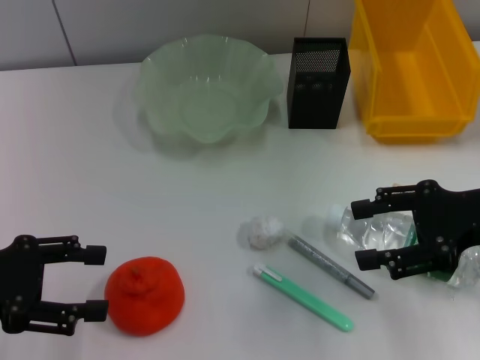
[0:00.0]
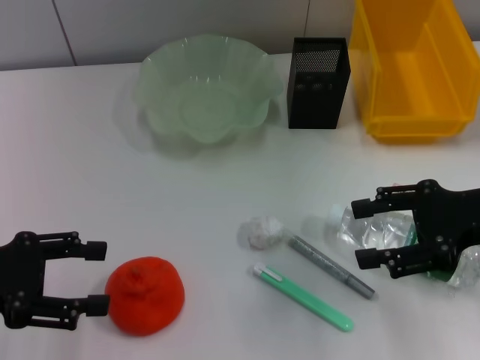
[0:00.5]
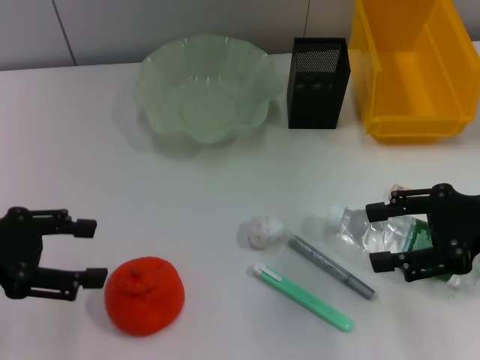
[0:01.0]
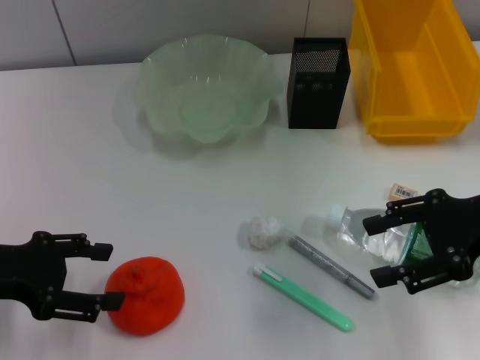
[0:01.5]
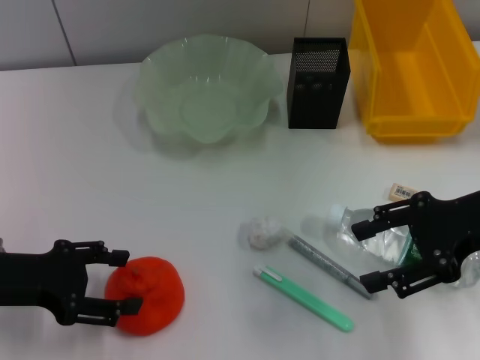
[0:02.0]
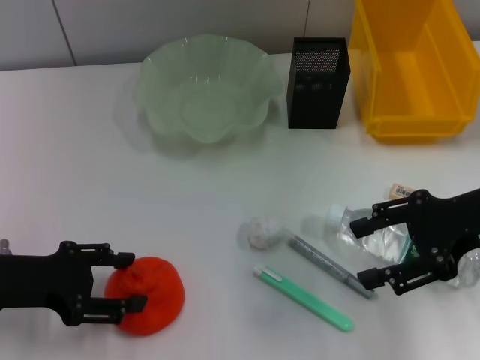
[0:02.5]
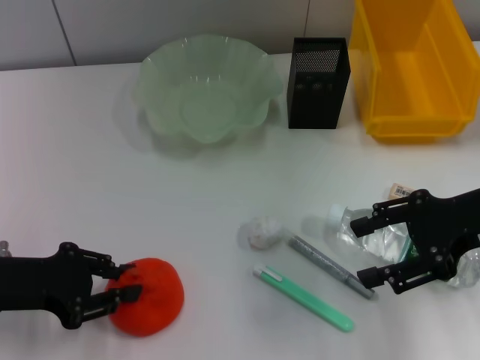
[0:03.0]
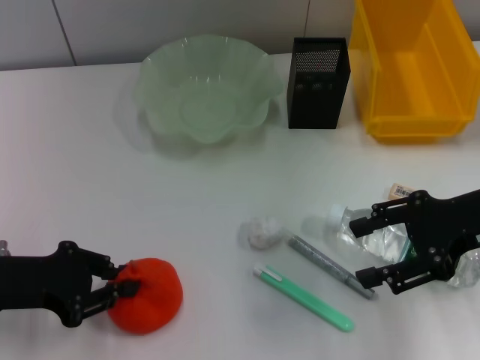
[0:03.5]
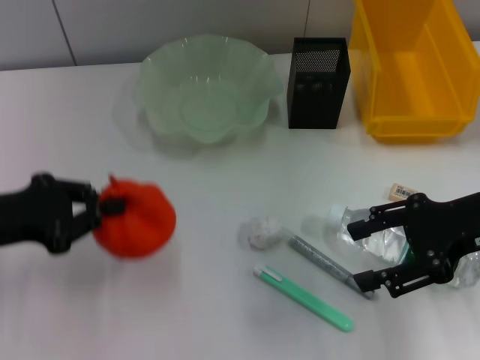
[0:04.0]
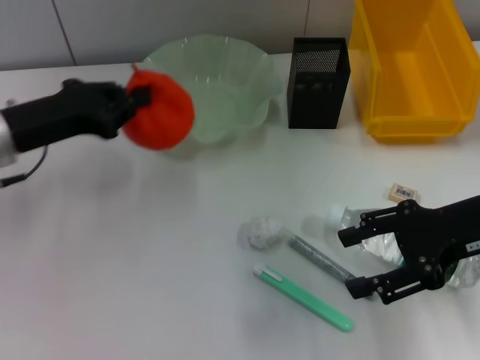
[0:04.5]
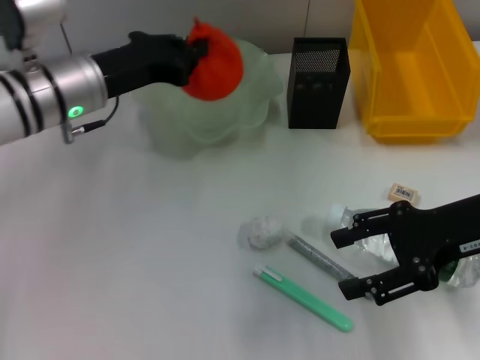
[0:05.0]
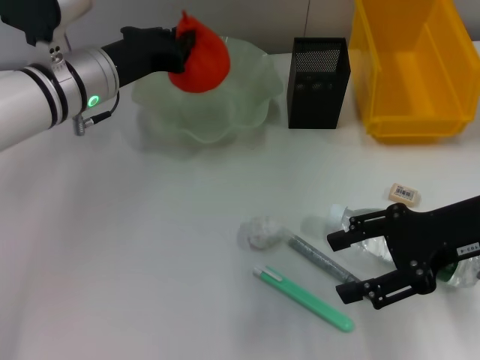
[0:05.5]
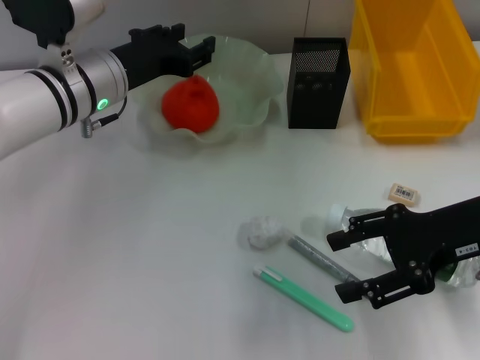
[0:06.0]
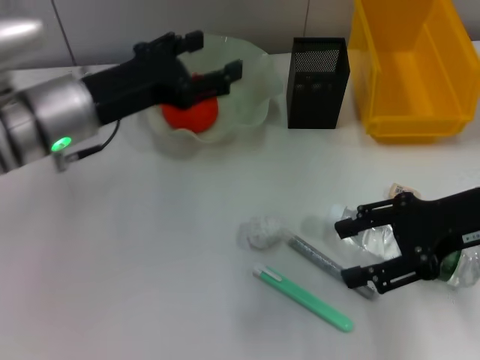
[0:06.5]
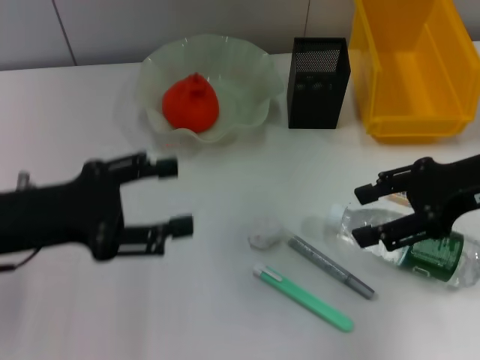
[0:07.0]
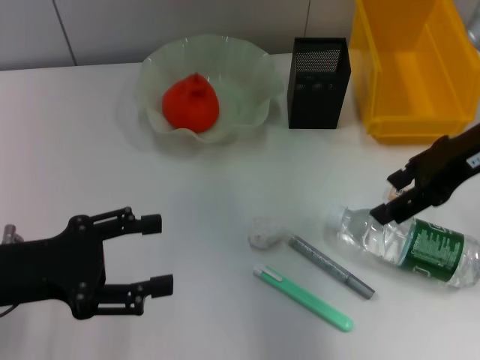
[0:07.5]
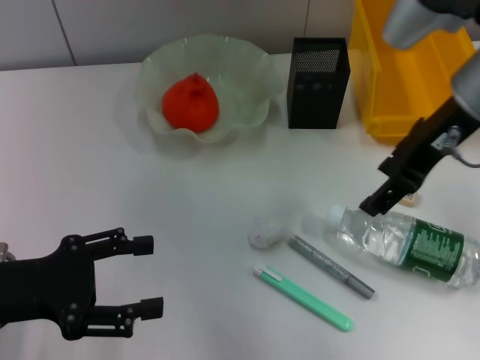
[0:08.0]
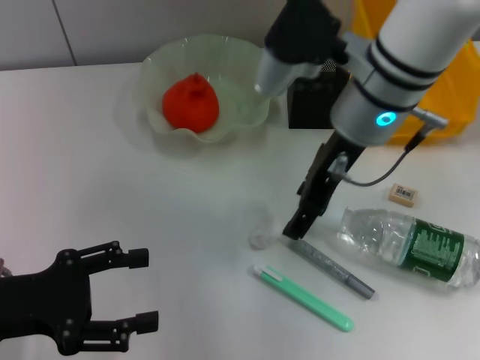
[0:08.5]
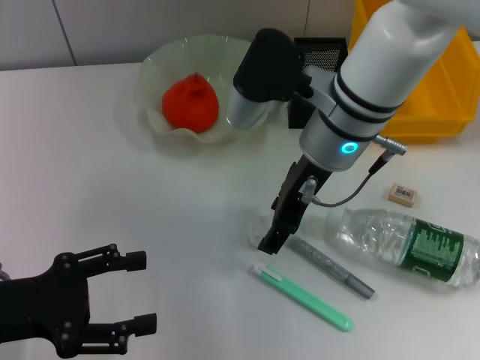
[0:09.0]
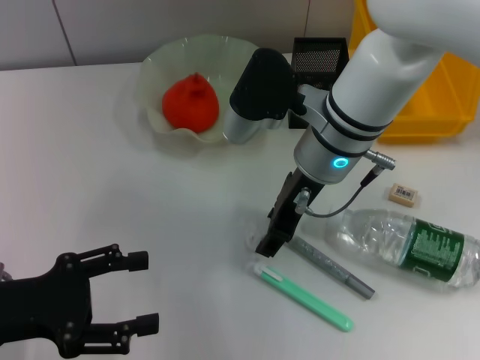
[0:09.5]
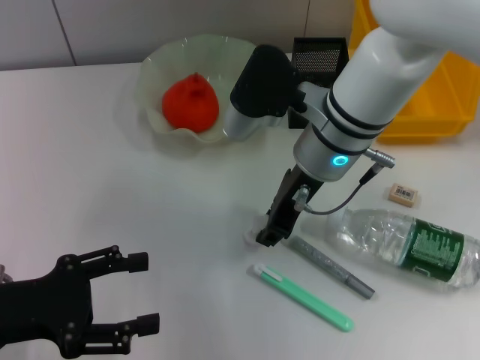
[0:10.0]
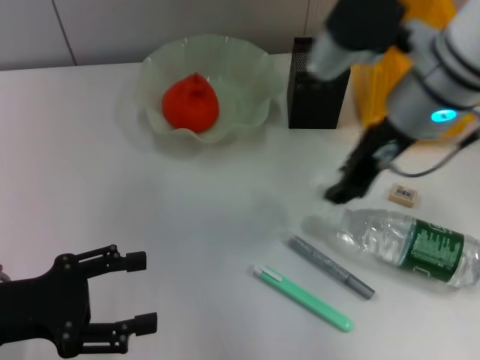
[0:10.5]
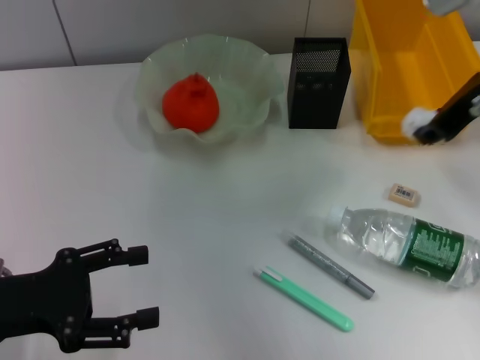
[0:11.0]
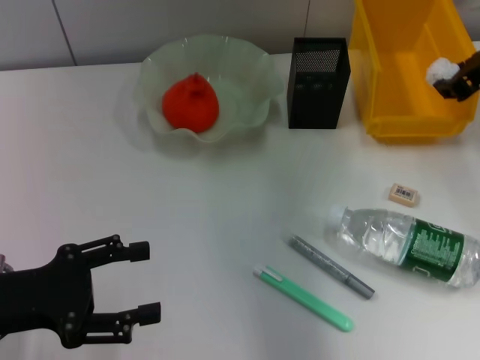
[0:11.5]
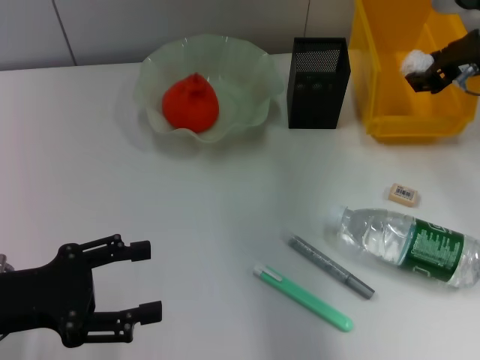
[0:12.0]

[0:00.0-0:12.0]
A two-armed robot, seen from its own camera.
Step, 0:00.0 to 0:03.5: Grab the orange with the left hand.
Step, 0:04.0 to 0:06.0: Place the orange into the fruit bowl with the left hand.
Step, 0:06.5 to 0:09.5: Grab the paper ball with the right hand.
0:00.0 to 0:02.0: The grippers move only a little.
0:02.0 to 0:04.0: The left gripper closes its fingers.
0:04.0 to 0:06.0: The left gripper moves to the right and forward, some 20 cm.
0:06.0 to 0:08.0: The left gripper moves backward and to the left, some 20 cm, and opens its fingers, while the right gripper shifts some 15 cm upward, forward and to the left.
0:08.0 to 0:10.0: The right gripper heads to the left and downward, covering about 15 cm, and closes its fingers.
0:10.0 to 0:12.0: The right gripper moves to the right, approximately 20 cm.

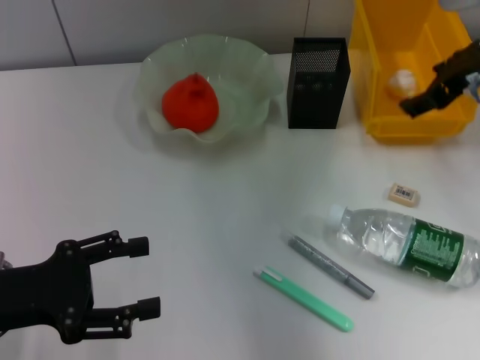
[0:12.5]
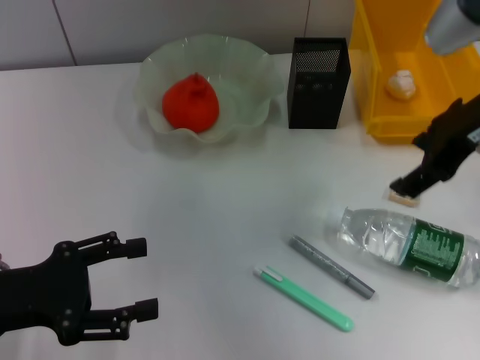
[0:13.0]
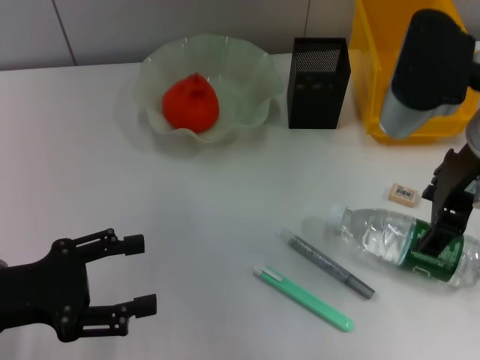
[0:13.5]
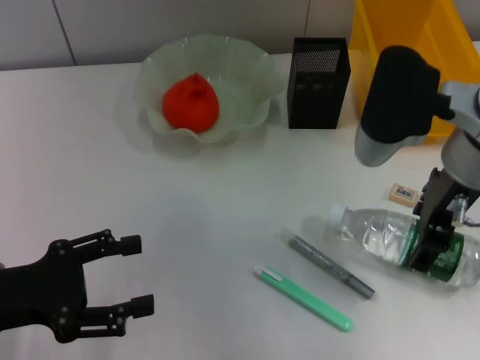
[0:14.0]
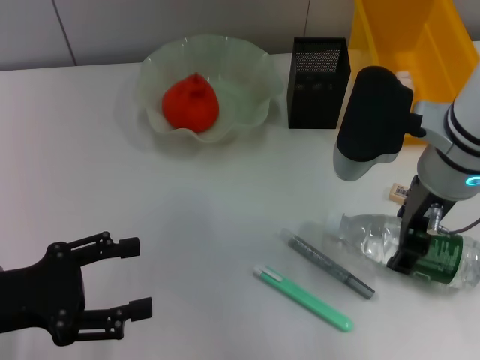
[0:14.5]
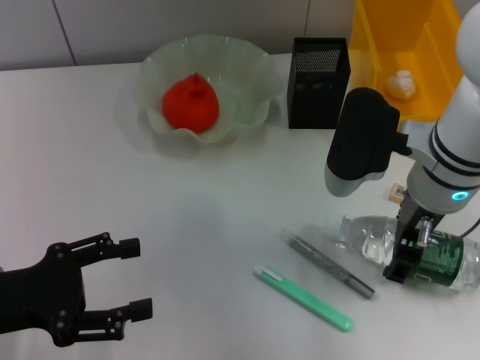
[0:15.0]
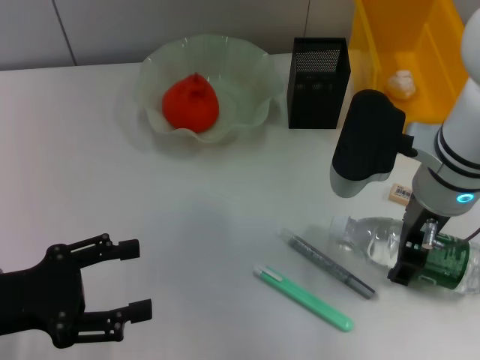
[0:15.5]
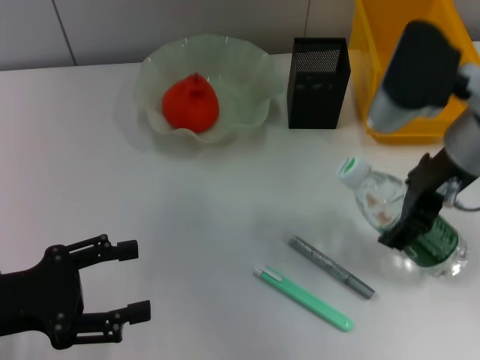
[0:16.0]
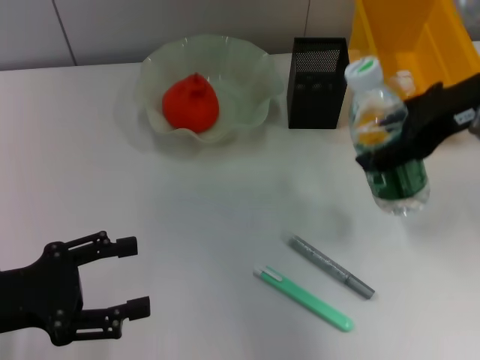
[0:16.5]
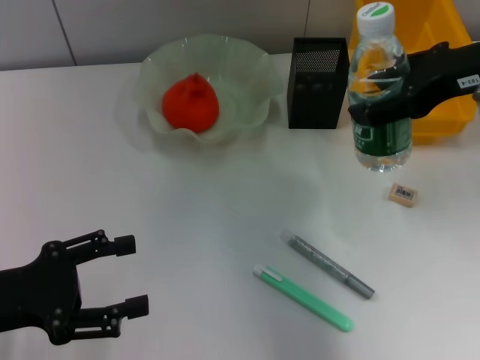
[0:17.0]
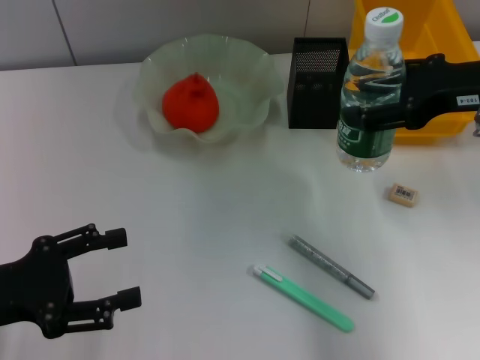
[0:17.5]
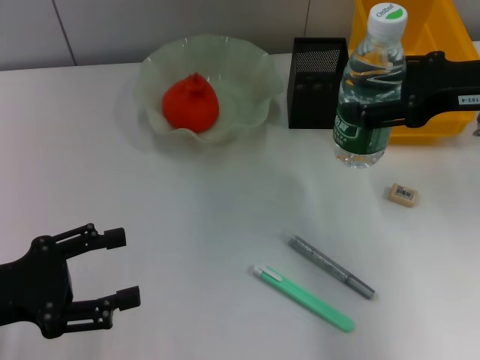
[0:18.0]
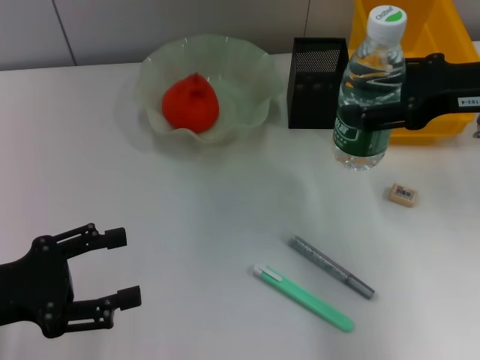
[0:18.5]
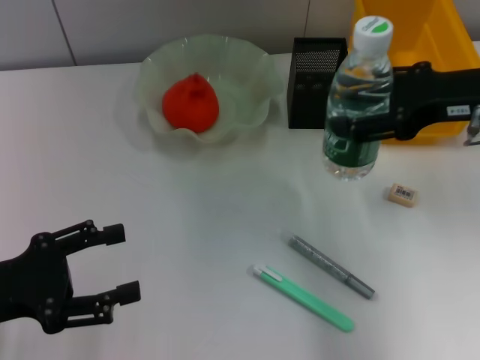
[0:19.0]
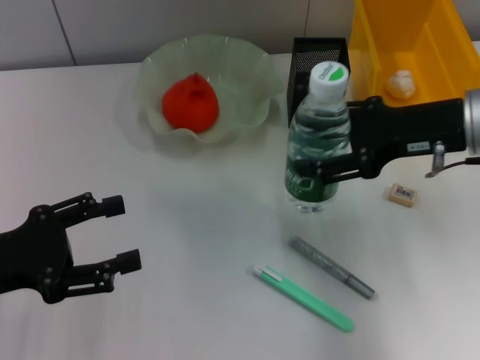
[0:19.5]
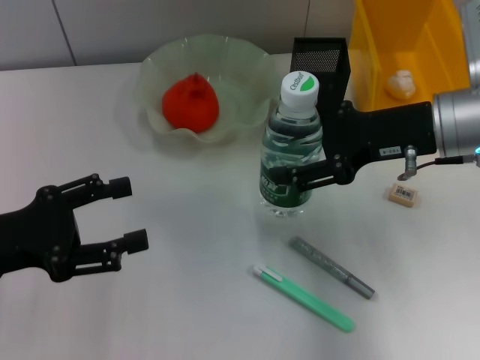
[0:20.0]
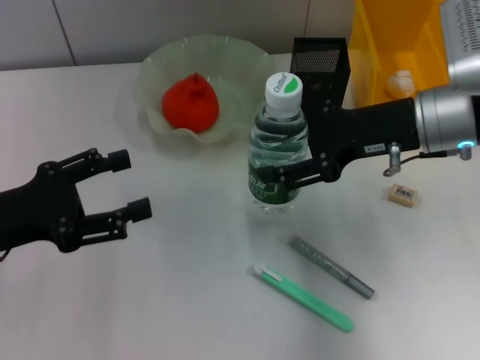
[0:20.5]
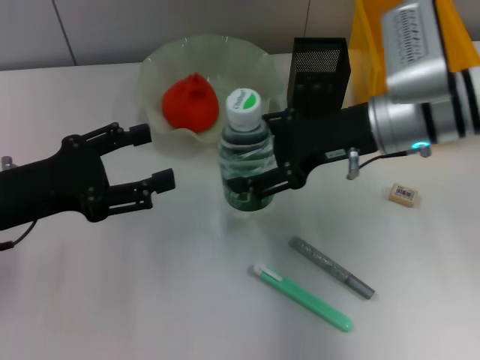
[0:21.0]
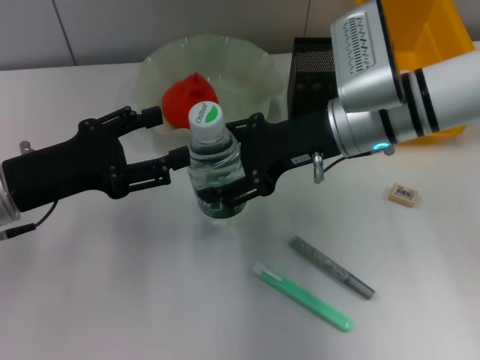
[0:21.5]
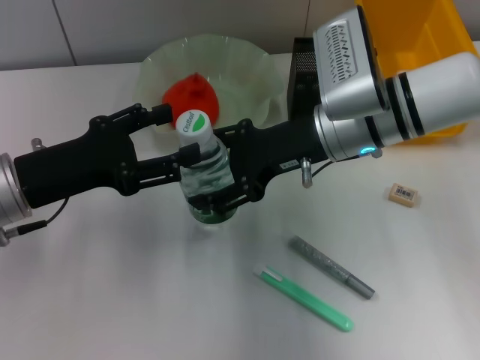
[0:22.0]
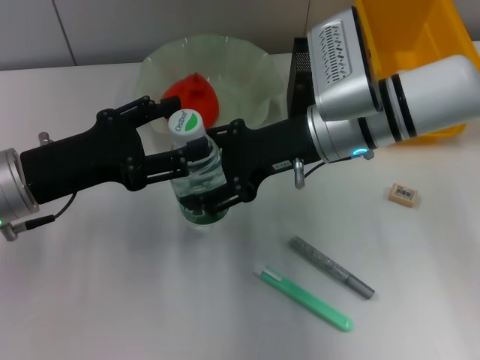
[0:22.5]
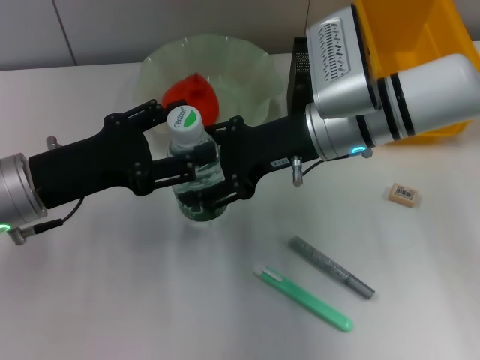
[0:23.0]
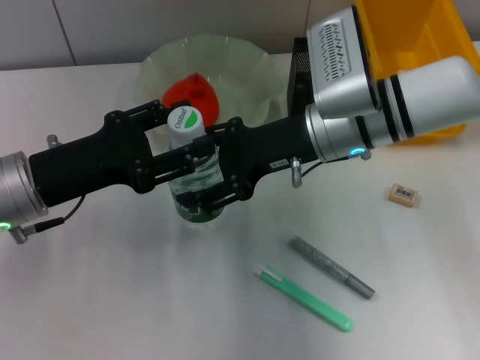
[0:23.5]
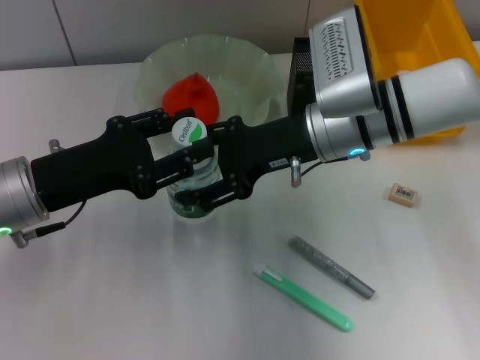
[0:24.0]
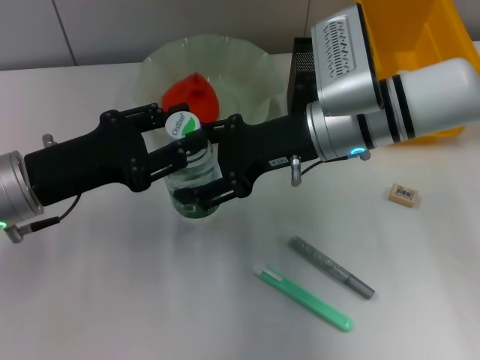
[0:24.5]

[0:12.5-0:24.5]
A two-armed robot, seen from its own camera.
Step, 0:12.5 to 0:15.5: Grab the water bottle with the right hand.
0:12.5 to 0:14.5: The right gripper moves to the left and backward, some 10 cm.
0:14.5 to 0:16.5: The right gripper heads upward and to the right, covering roughly 10 cm.
0:16.5 to 0:18.5: The right gripper moves some 5 cm.
0:18.5 to 0:20.5: The right gripper is displaced to the left by roughly 5 cm. Meanwhile the left gripper changes place by some 5 cm.
0:20.5 to 0:22.5: The left gripper moves to the right, about 5 cm; the right gripper shifts approximately 10 cm to the left.
0:22.5 to 0:24.5: The left gripper closes.

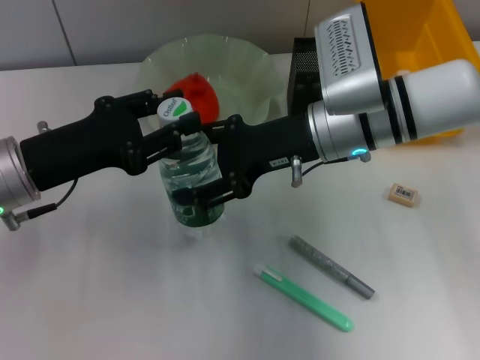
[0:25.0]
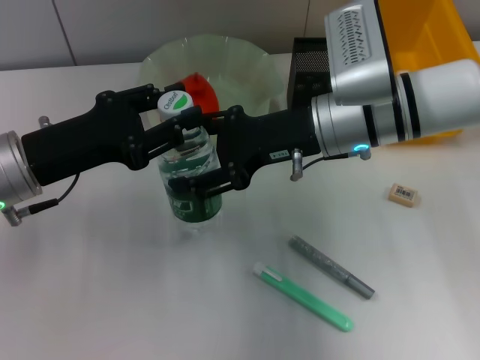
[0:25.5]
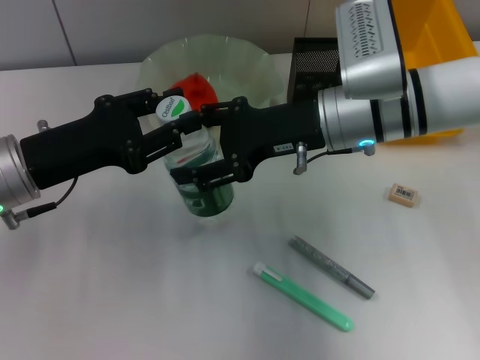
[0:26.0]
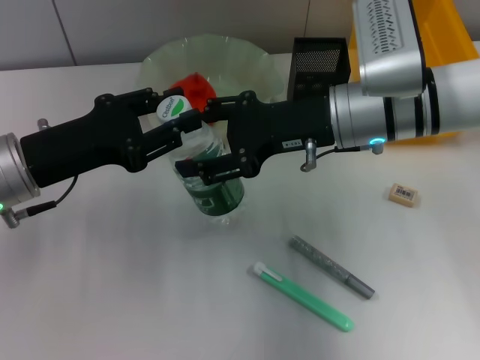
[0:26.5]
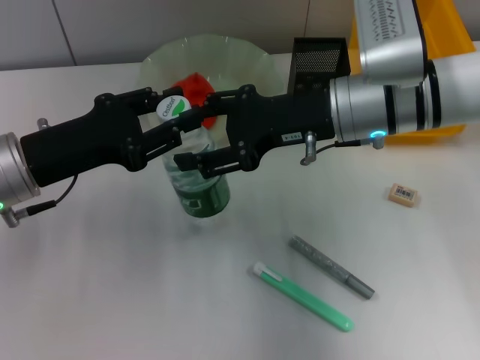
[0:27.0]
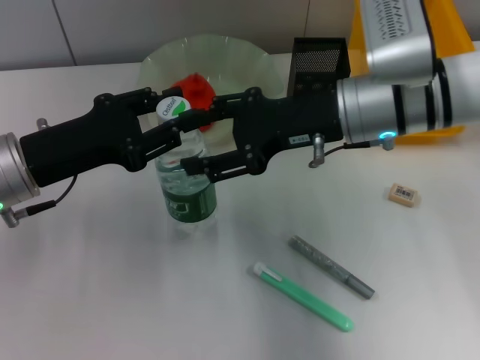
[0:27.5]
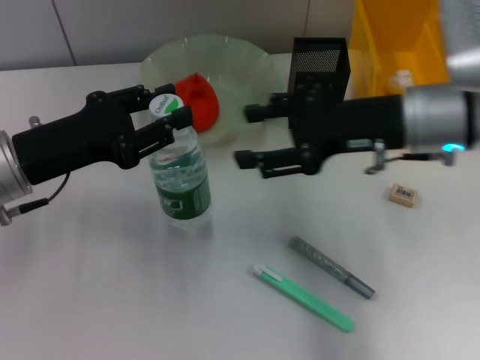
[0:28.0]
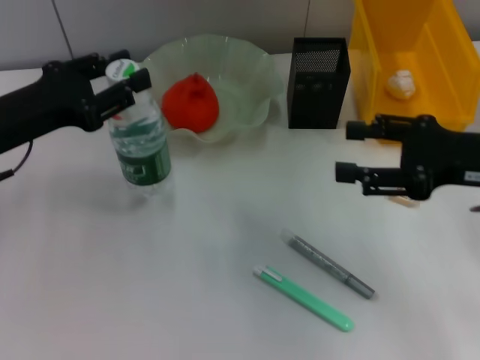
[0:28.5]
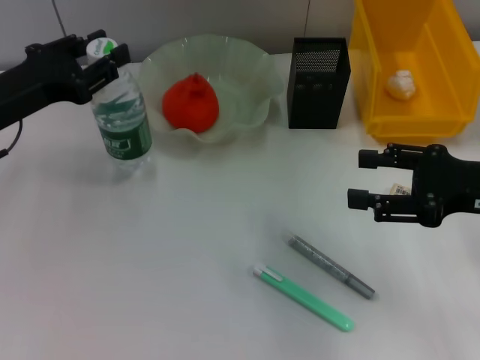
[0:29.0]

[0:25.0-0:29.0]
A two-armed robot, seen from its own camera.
Step, 0:25.0 to 0:27.5: Pass the water bottle from the right hand to the left hand.
0:25.0 to 0:27.0: The grippers move only a little.
0:27.0 to 0:29.0: The right gripper moves to the right and backward, roughly 20 cm, while the left gripper changes place by approximately 5 cm.
